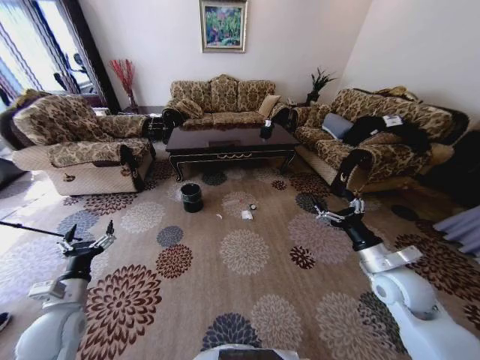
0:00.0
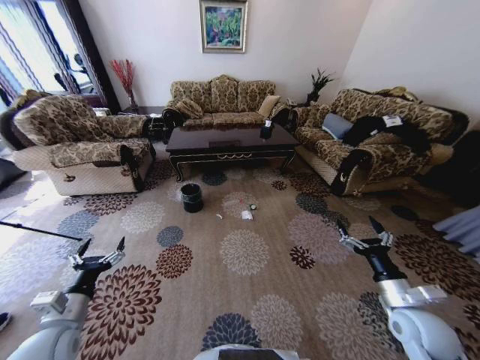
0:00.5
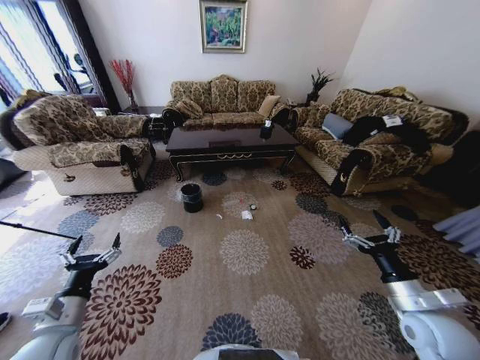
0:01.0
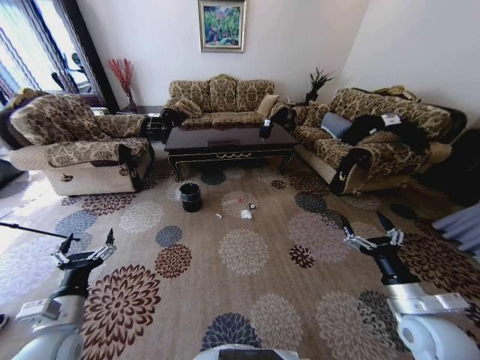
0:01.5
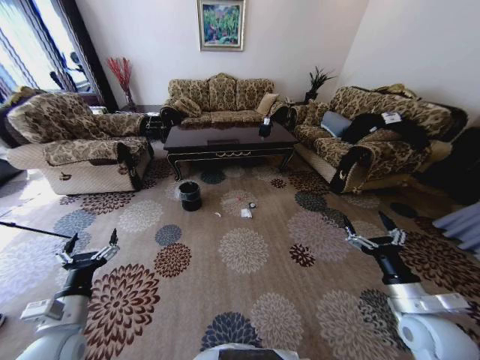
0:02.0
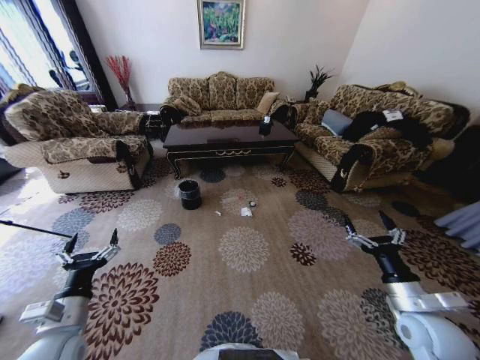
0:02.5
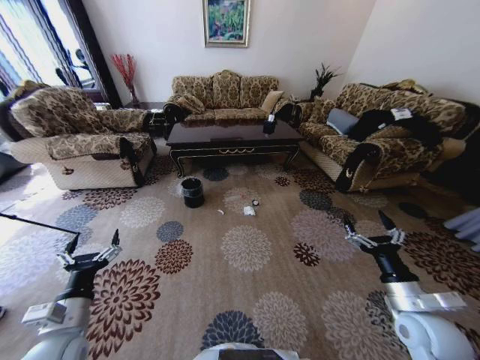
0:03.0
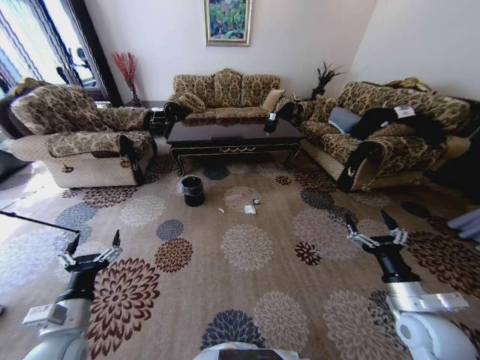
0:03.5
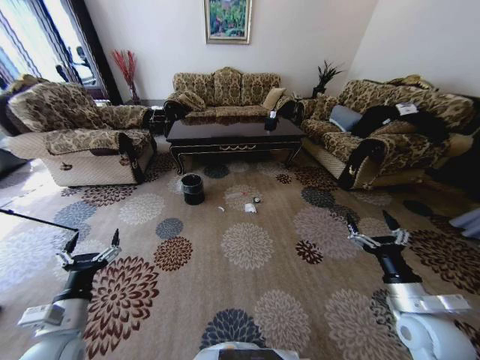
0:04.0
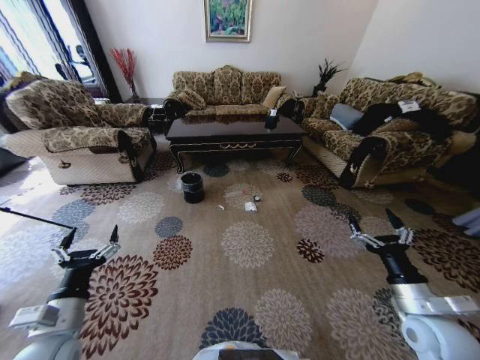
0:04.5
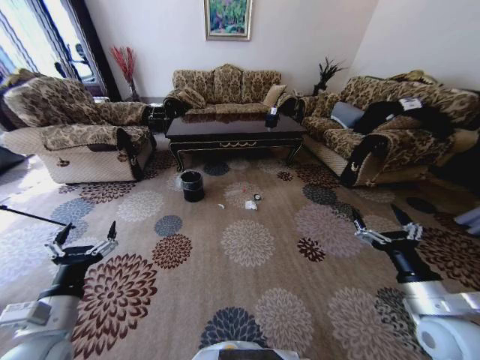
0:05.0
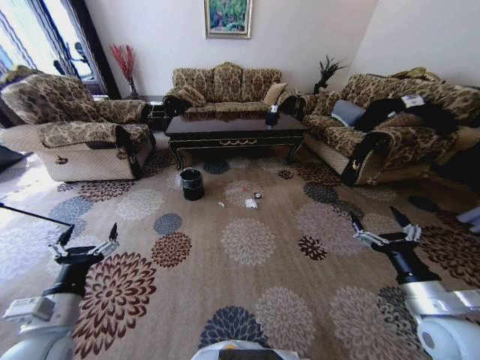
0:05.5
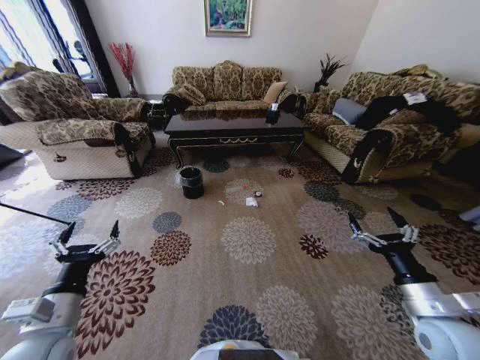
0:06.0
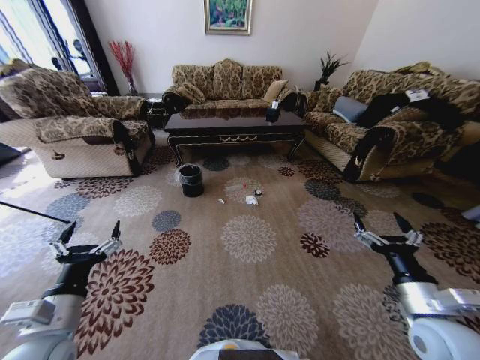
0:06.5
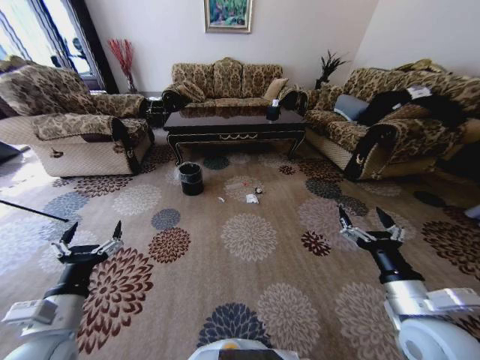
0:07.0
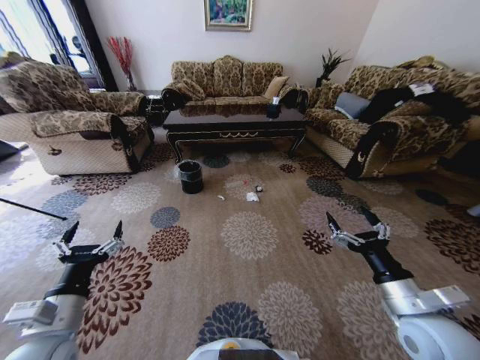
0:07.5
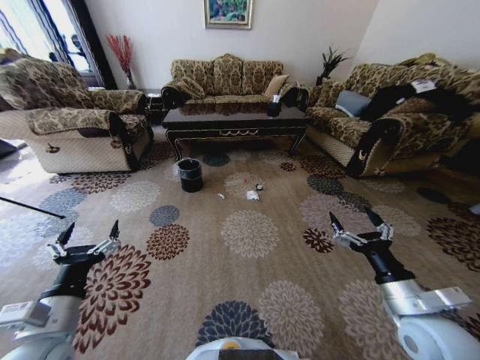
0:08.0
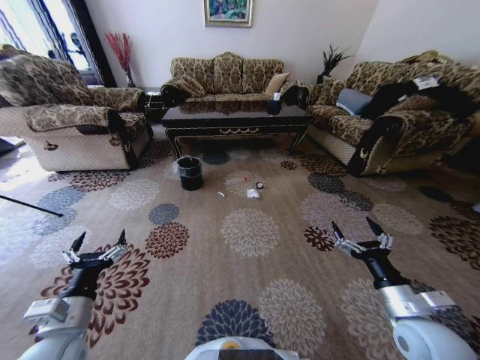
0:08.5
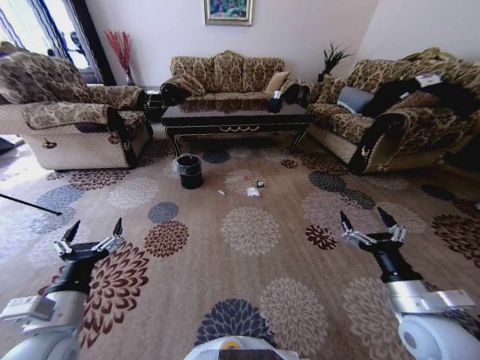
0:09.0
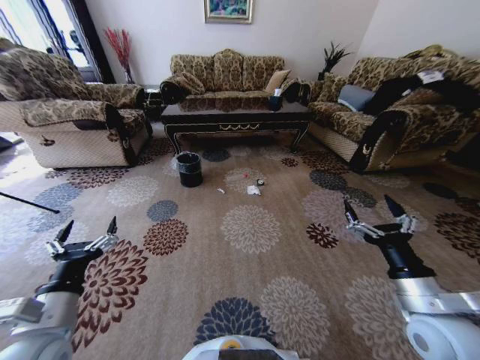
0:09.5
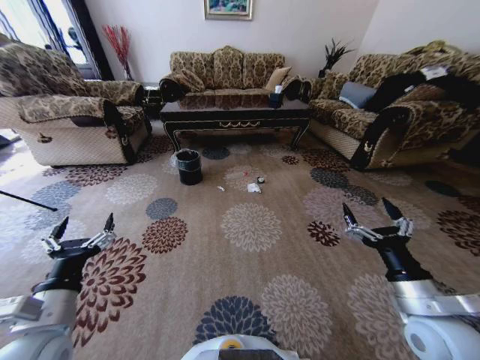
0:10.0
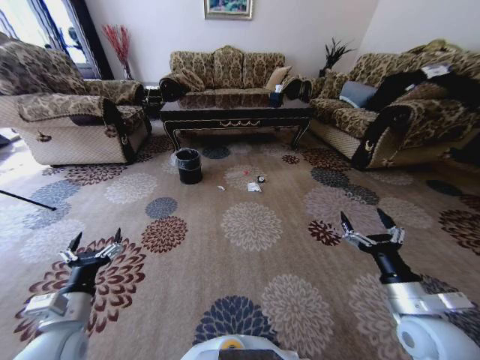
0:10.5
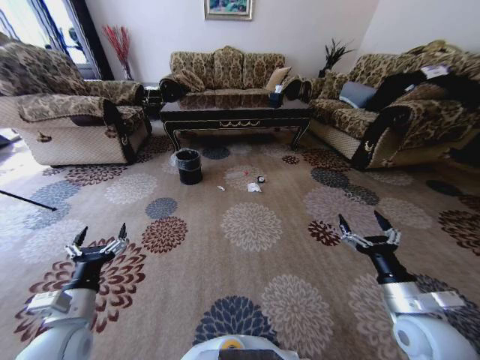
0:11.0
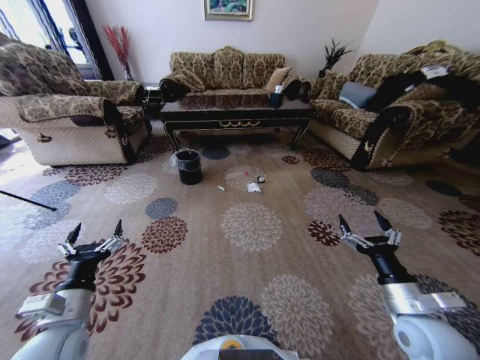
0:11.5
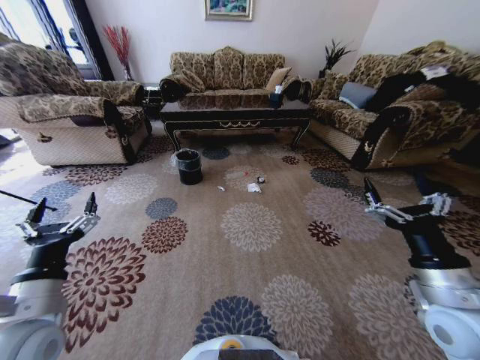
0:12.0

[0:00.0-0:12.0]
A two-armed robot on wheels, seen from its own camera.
Task of the whole recording: Move to the front of the table and pick up the trash from the floor, then place it into the trash bin.
0:04.0 to 0:06.0: The left gripper shifts by roughly 5 cm.
0:10.0 to 0:12.0: The left gripper moves about 5 cm downward and comes back.

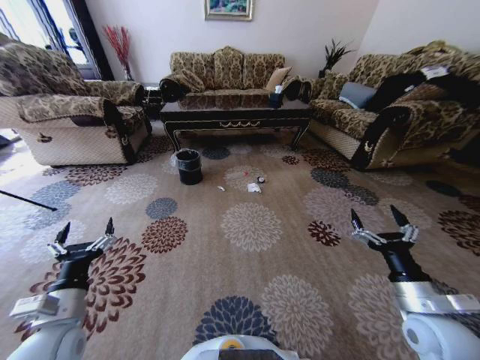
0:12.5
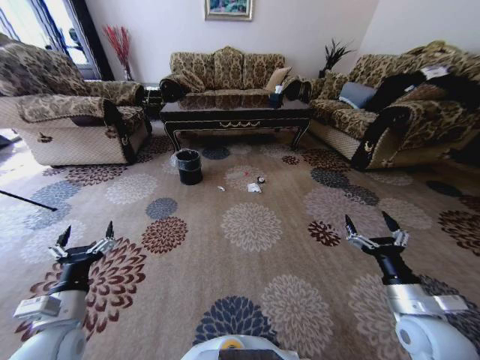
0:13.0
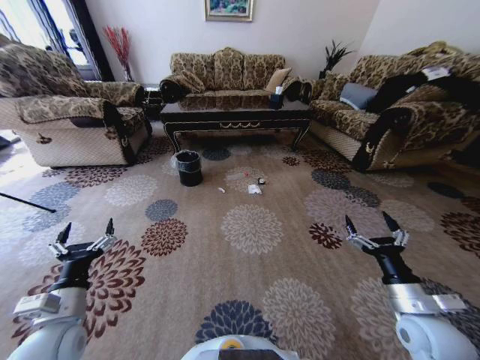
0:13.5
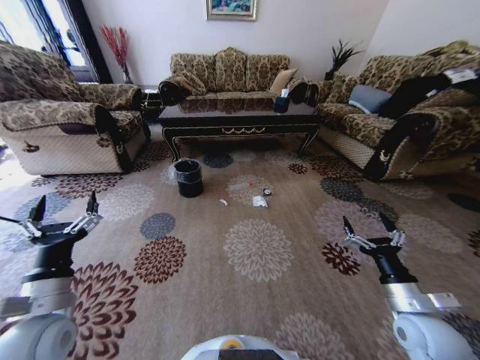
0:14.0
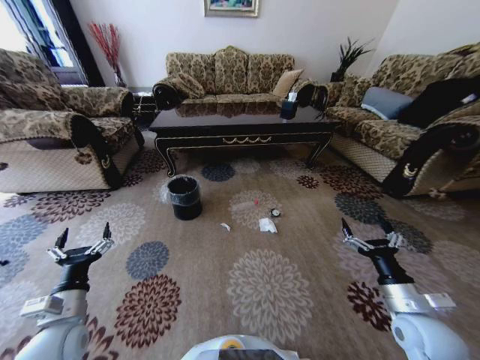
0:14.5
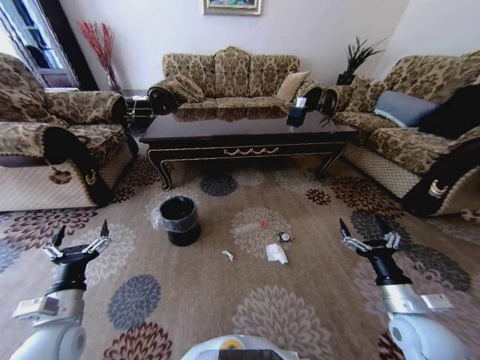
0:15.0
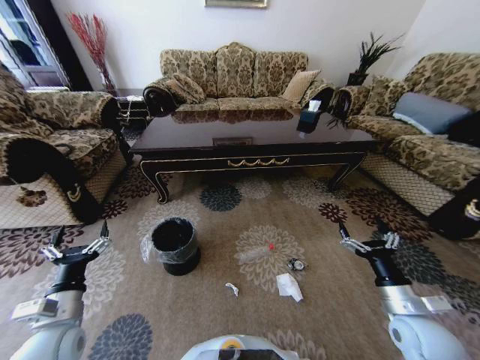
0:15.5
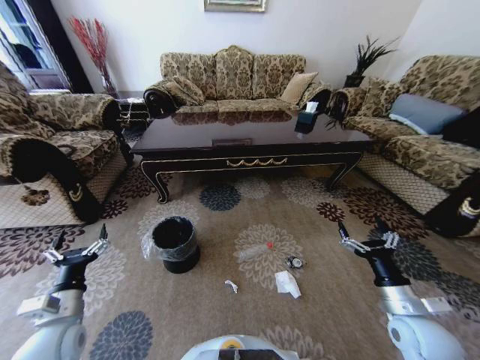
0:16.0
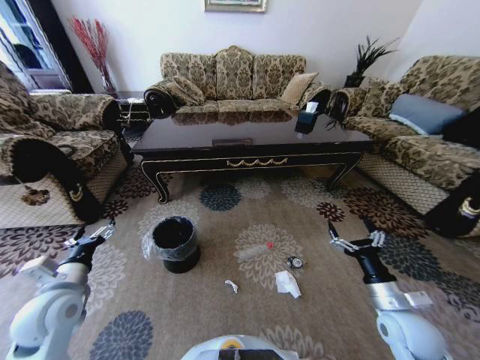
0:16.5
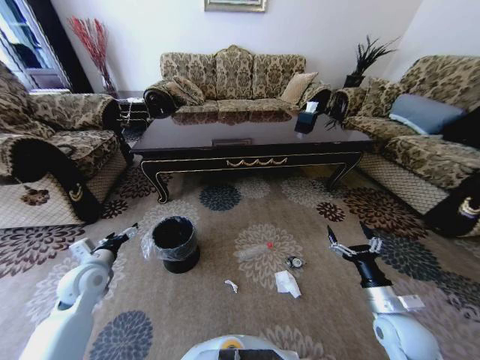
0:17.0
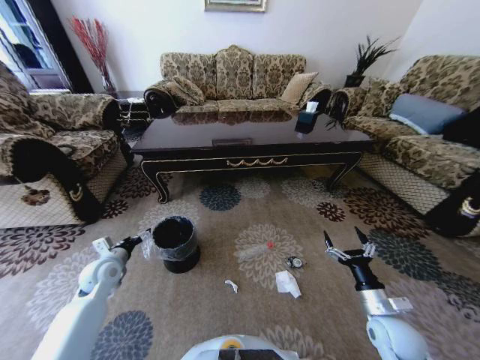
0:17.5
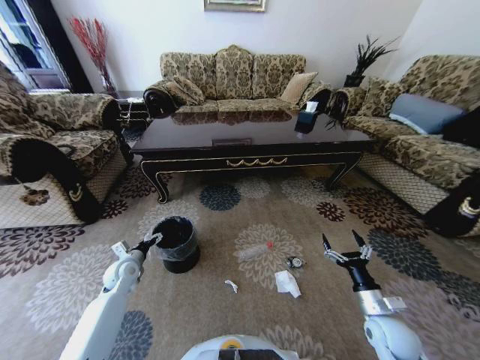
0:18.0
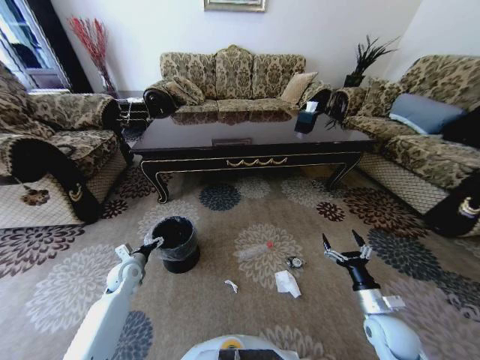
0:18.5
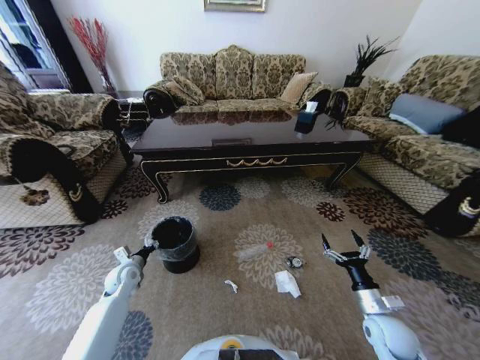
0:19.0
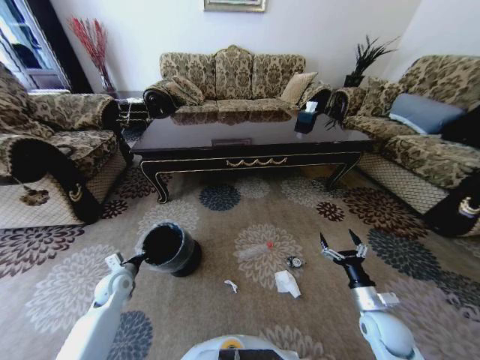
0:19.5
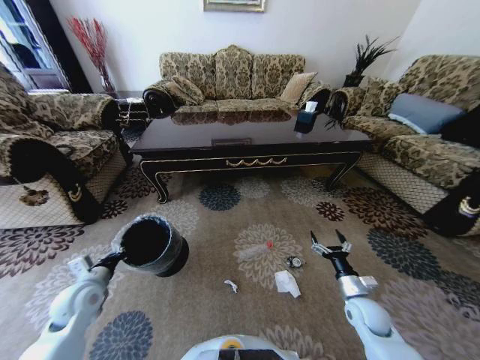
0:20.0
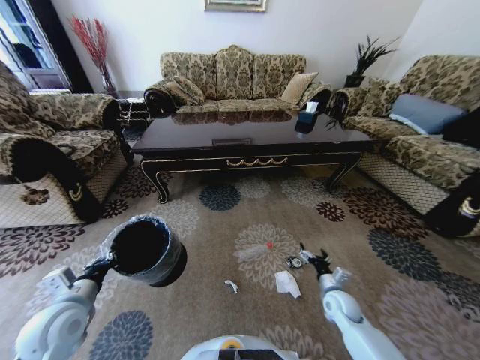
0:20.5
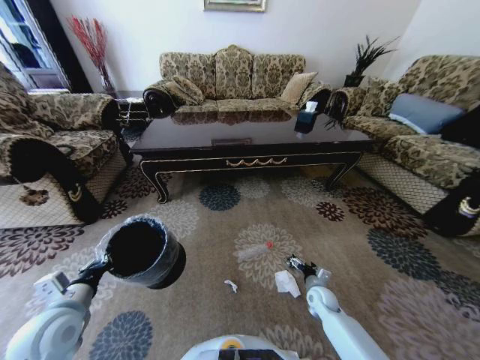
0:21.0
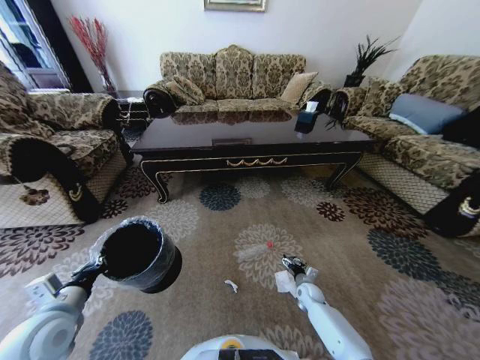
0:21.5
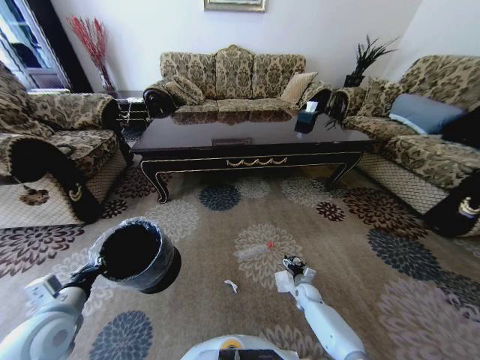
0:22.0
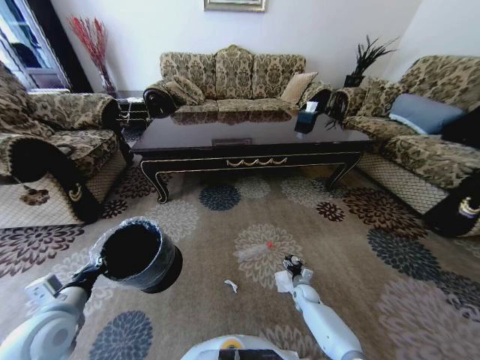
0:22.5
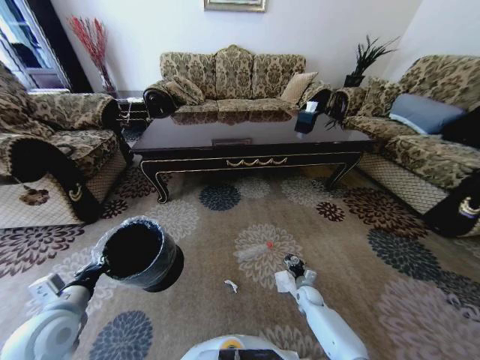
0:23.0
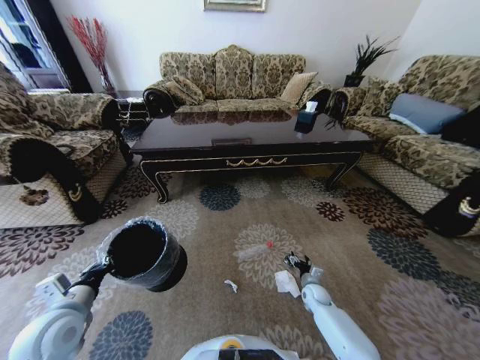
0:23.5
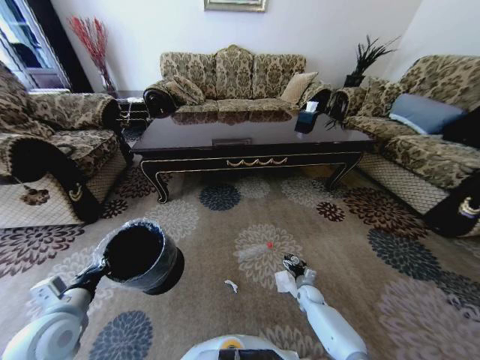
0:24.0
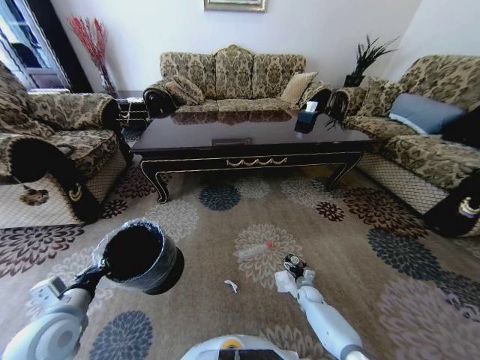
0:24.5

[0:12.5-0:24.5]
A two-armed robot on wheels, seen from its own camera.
Task of the whole recording: Move to the front of the table and pick up the trash from the floor, then place it into the trash bin.
0:14.5 to 0:16.5: The left gripper shifts roughly 5 cm forward.
0:16.5 to 0:18.5: The left gripper moves downward and forward, some 20 cm. Meanwhile the right gripper is displaced downward by some 5 cm.
0:18.5 to 0:20.5: The right gripper shifts roughly 10 cm forward, downward and to the left, while the left gripper is displaced backward and upward by approximately 20 cm, and closes up.
0:20.5 to 0:22.5: The right gripper shifts approximately 15 cm downward and forward.
0:22.5 to 0:24.5: The grippers move only a little.

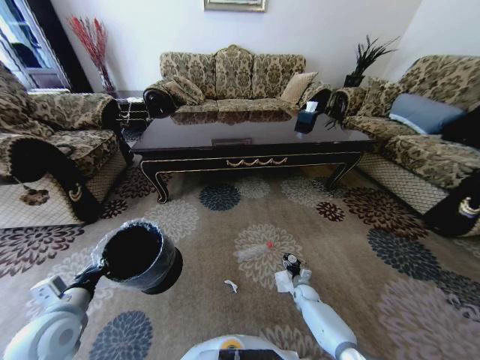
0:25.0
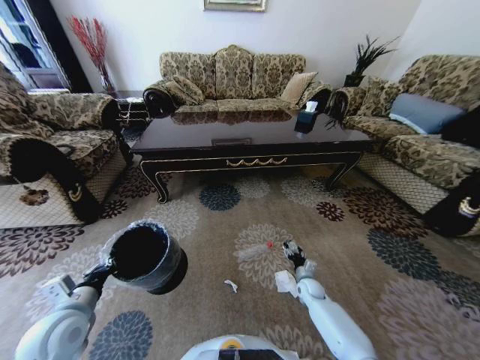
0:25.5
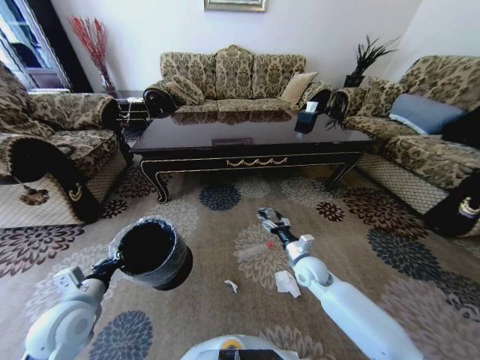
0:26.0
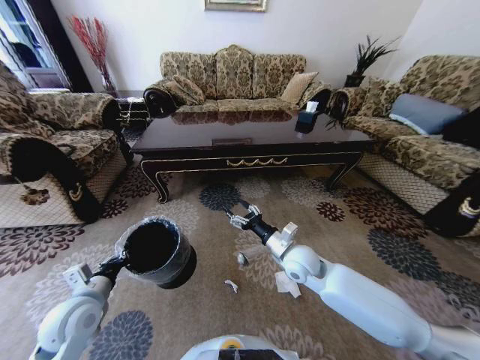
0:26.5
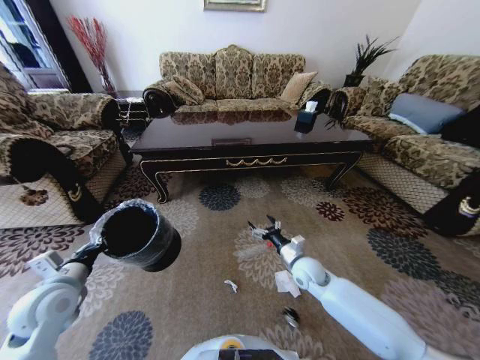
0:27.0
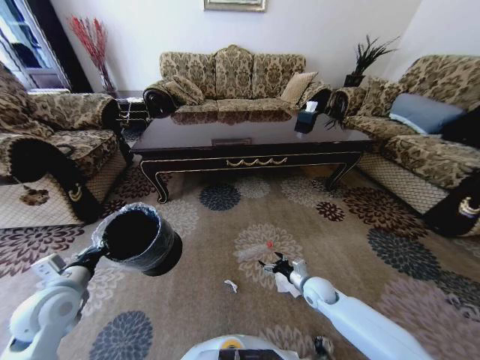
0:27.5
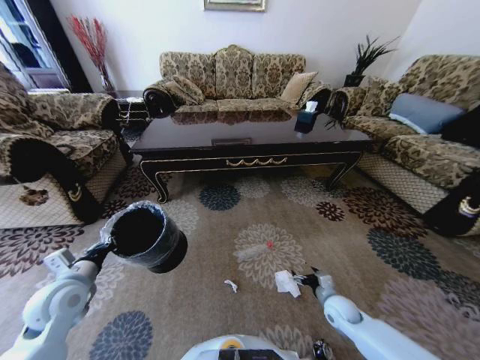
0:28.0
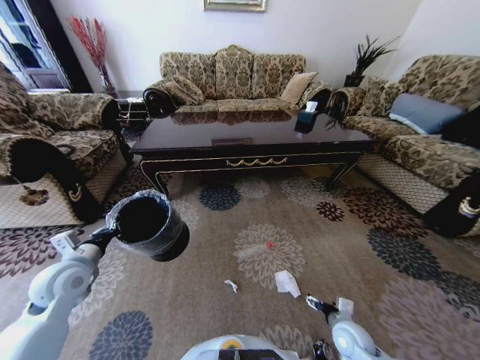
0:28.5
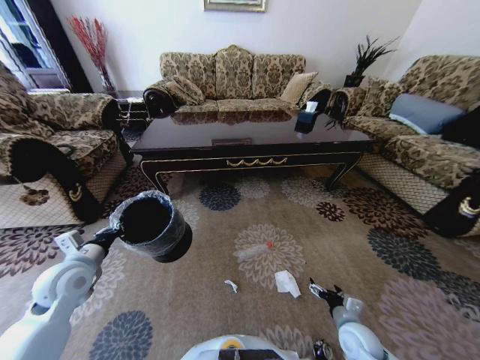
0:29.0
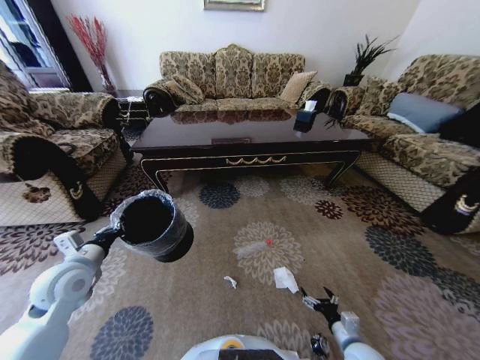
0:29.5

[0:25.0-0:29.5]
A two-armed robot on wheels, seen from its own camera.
Task of the whole recording: Move to the front of the table and pick up the trash from the floor, then place it into the trash bin.
0:25.0 to 0:27.0: The right gripper heads upward, covering approximately 25 cm. Meanwhile the left gripper moves approximately 5 cm.
0:27.0 to 0:29.5: The right gripper shifts some 25 cm backward, to the right and downward.
